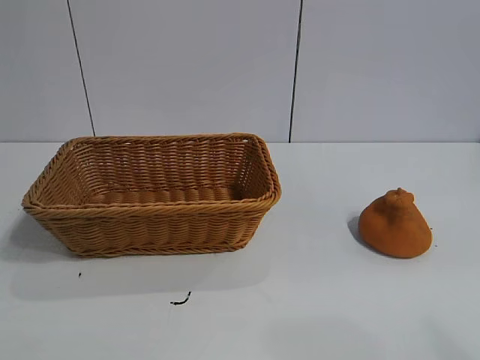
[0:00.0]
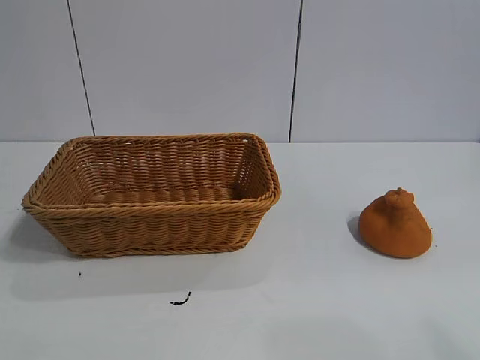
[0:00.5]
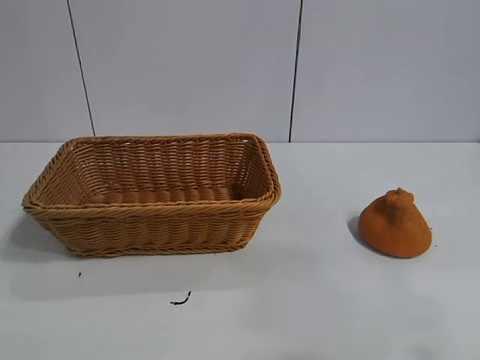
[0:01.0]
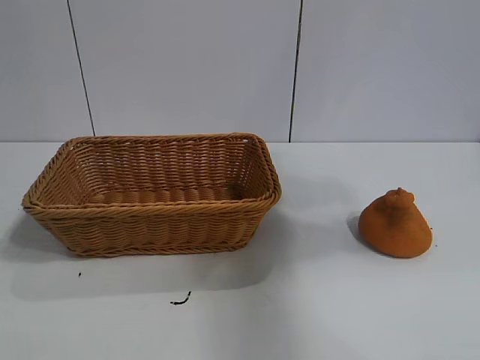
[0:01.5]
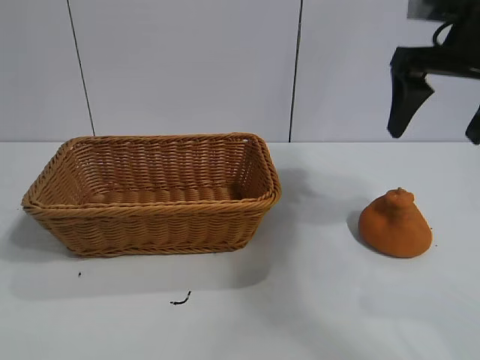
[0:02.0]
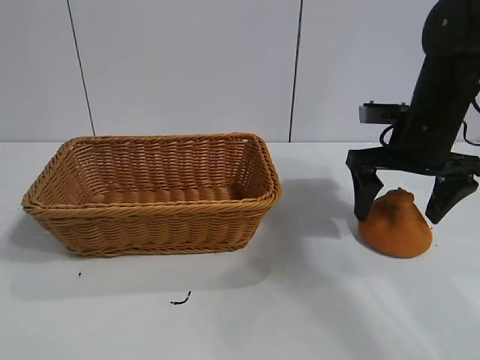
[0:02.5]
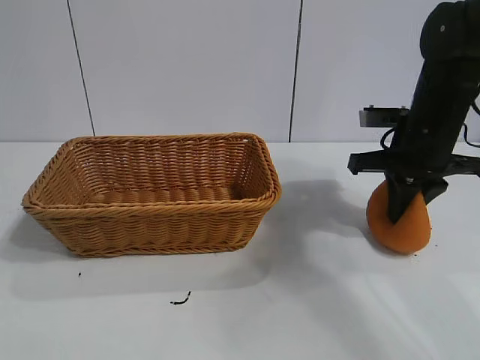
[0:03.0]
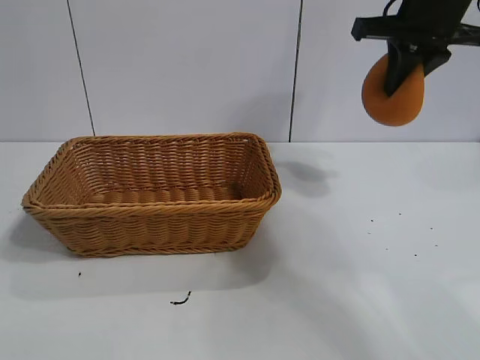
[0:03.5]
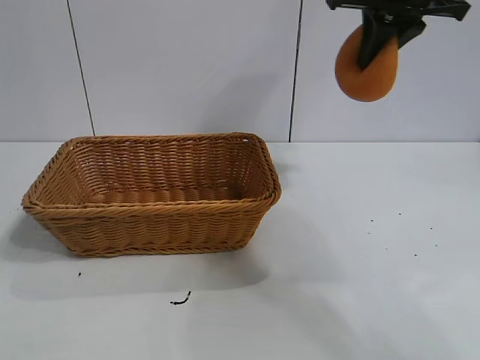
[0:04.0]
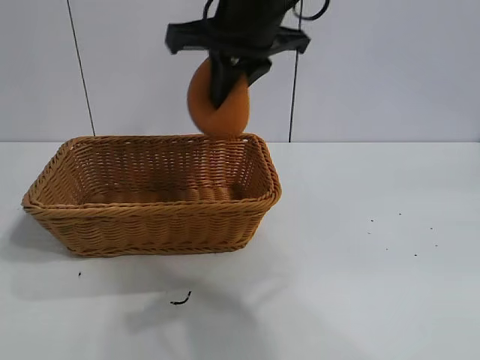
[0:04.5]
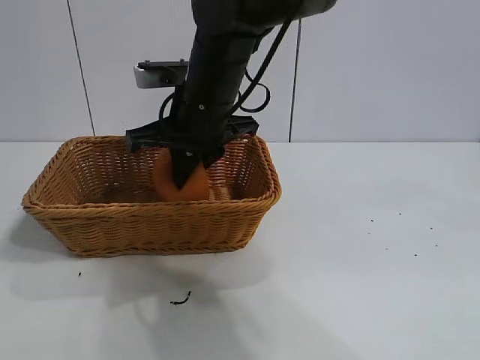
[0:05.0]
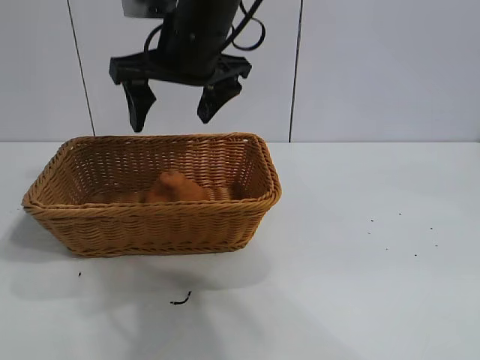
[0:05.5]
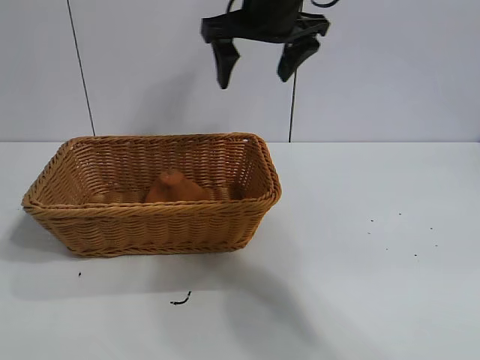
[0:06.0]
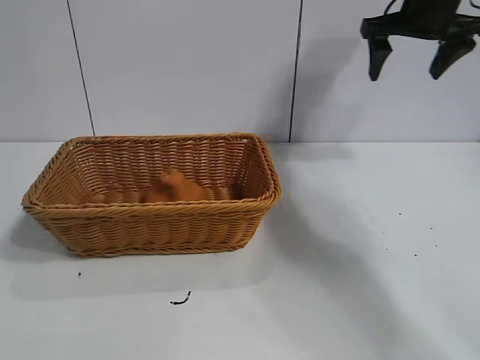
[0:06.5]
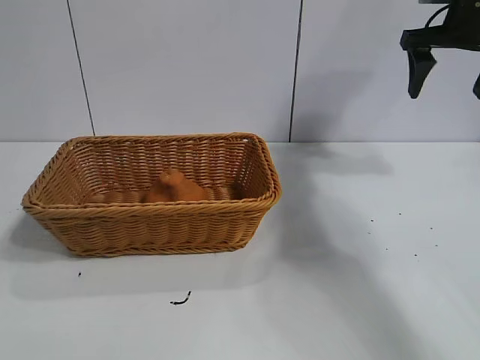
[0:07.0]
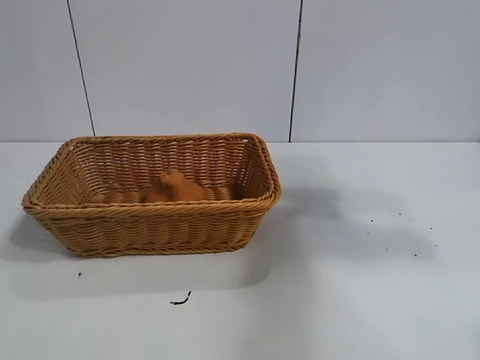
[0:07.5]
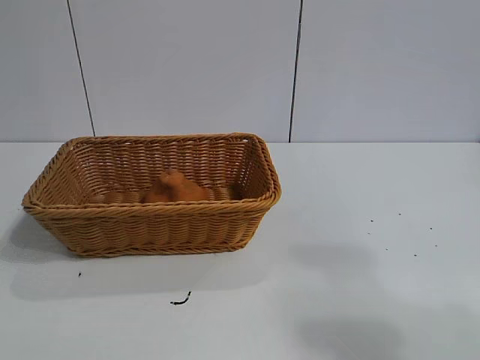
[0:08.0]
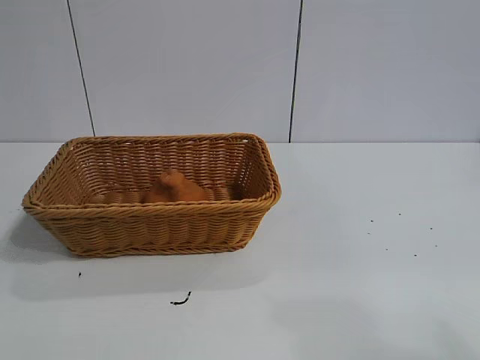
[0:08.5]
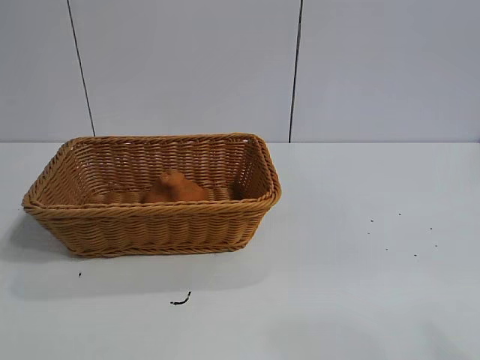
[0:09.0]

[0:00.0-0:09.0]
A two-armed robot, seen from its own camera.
Task of the whole recording: pick up the orange and put it into the basket.
Step, 0:01.0 to 0:02.5: Grasp the orange with right gripper.
Step, 0:03.0 to 0:05.0: Place the orange in the basket with right gripper.
